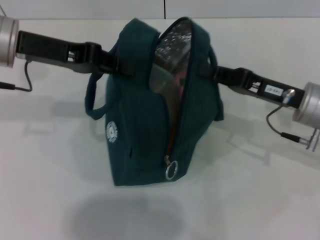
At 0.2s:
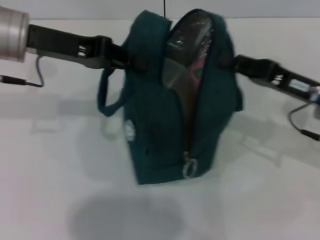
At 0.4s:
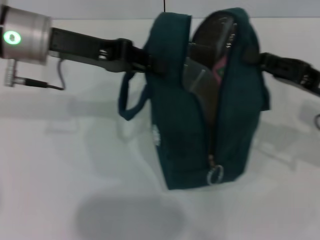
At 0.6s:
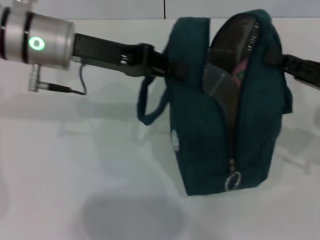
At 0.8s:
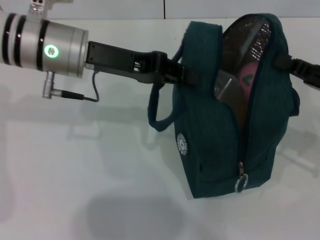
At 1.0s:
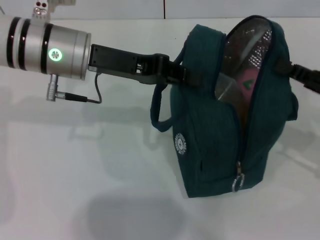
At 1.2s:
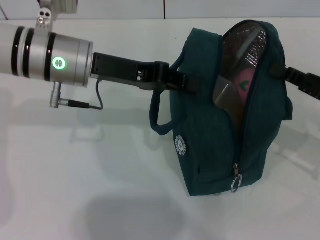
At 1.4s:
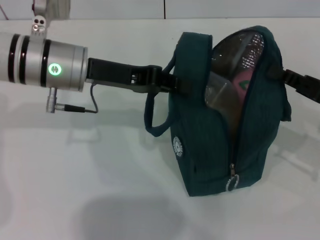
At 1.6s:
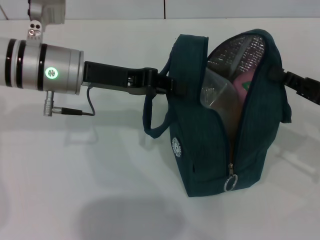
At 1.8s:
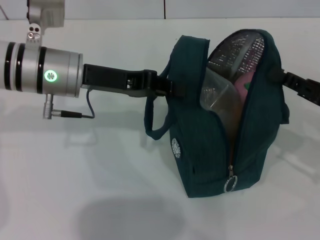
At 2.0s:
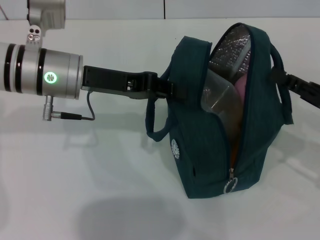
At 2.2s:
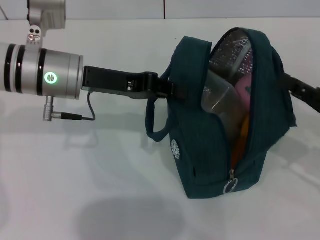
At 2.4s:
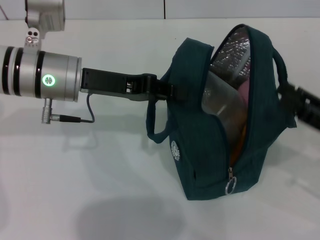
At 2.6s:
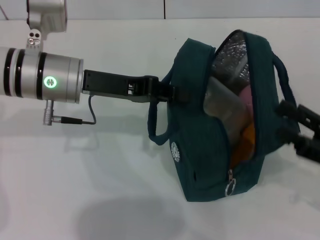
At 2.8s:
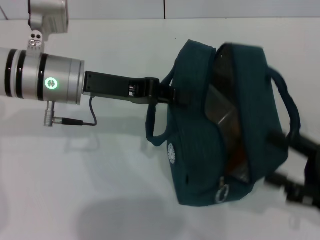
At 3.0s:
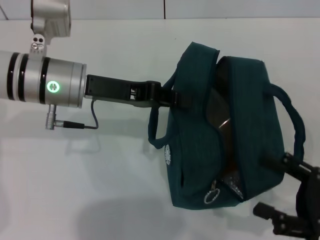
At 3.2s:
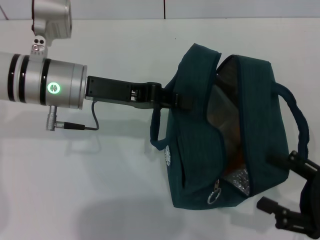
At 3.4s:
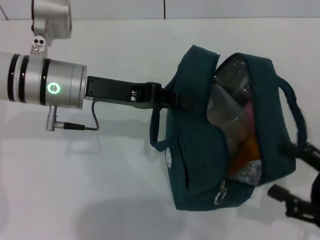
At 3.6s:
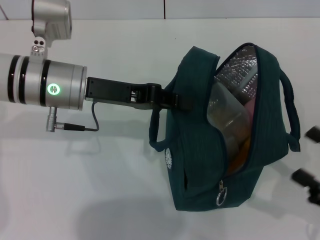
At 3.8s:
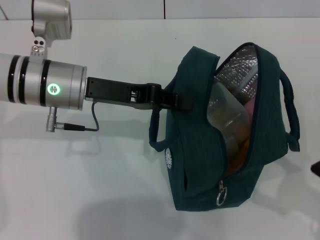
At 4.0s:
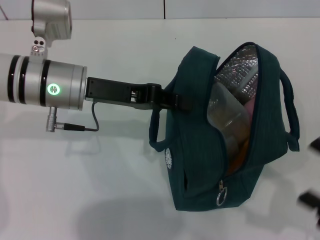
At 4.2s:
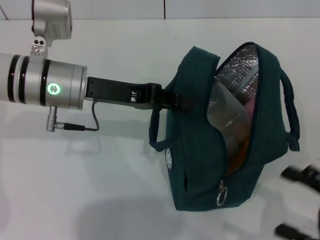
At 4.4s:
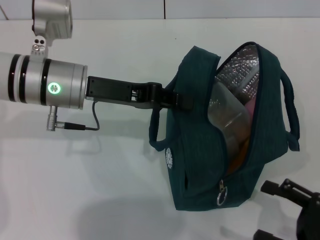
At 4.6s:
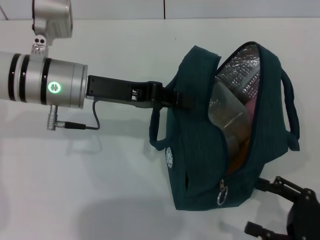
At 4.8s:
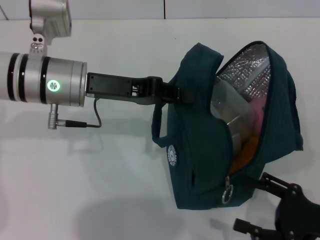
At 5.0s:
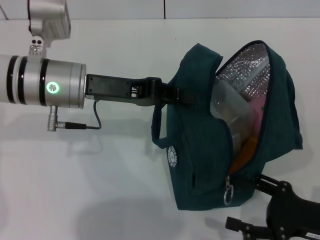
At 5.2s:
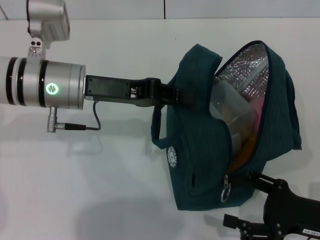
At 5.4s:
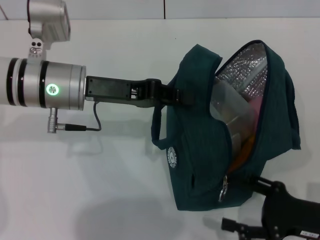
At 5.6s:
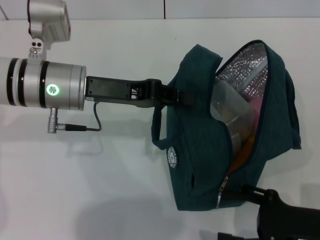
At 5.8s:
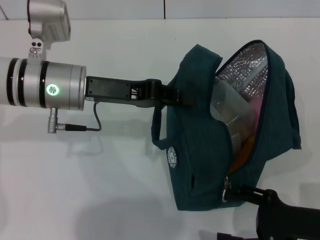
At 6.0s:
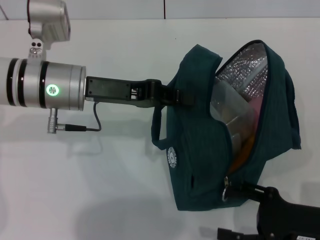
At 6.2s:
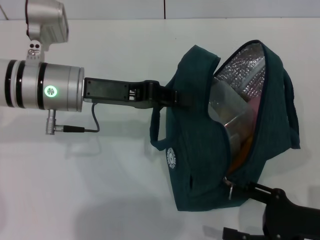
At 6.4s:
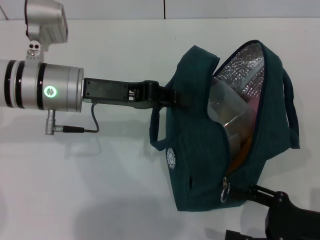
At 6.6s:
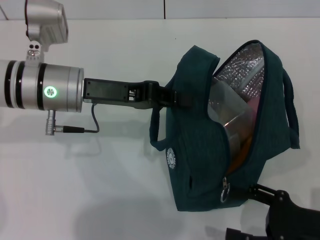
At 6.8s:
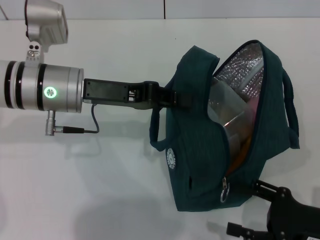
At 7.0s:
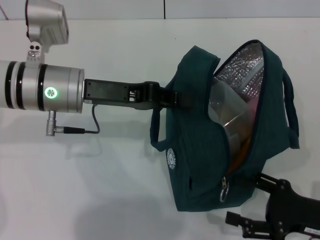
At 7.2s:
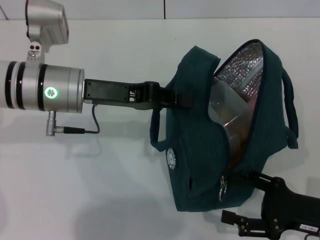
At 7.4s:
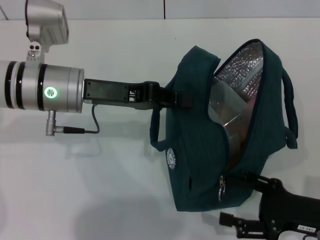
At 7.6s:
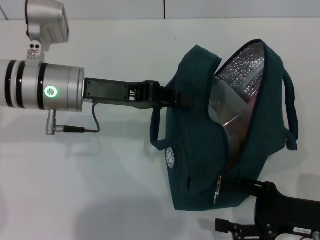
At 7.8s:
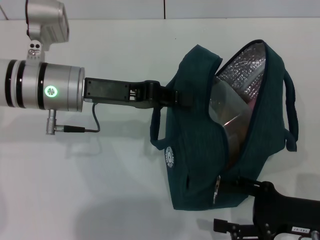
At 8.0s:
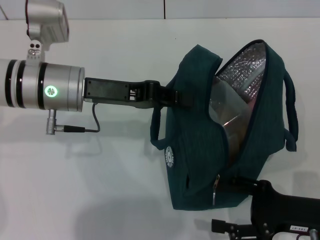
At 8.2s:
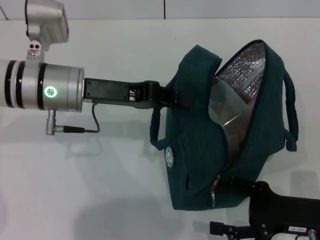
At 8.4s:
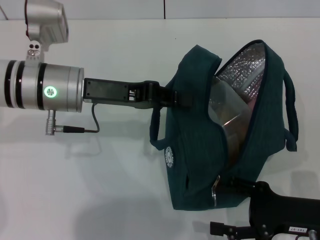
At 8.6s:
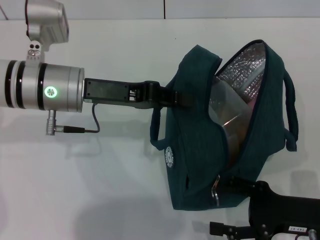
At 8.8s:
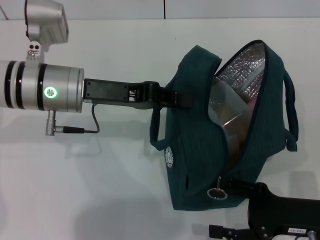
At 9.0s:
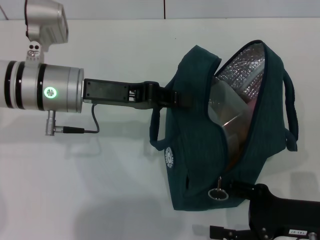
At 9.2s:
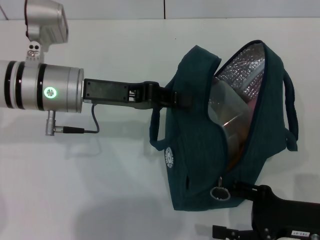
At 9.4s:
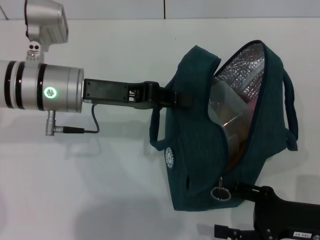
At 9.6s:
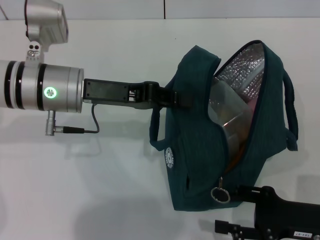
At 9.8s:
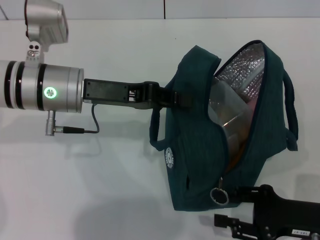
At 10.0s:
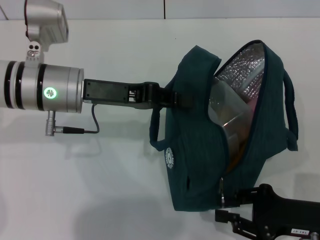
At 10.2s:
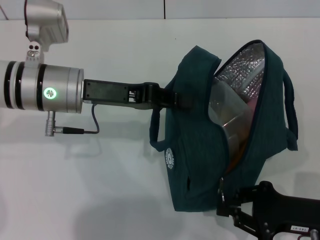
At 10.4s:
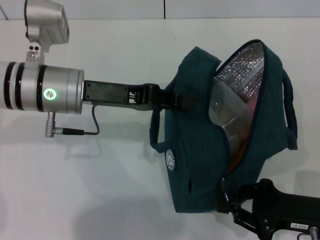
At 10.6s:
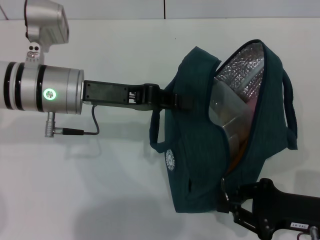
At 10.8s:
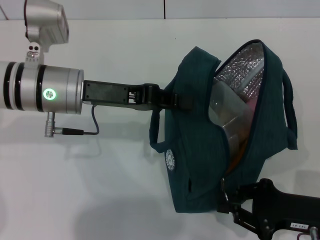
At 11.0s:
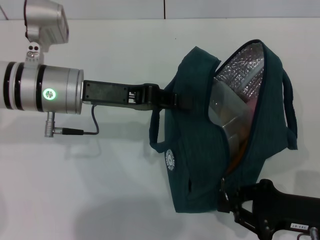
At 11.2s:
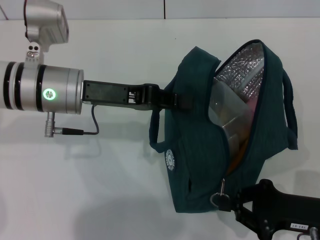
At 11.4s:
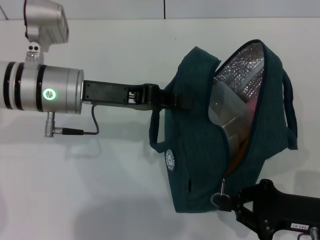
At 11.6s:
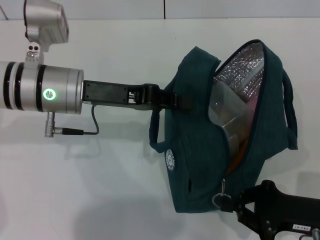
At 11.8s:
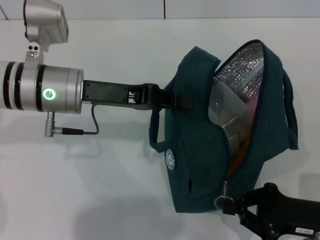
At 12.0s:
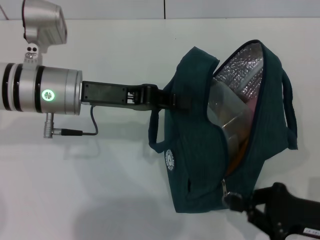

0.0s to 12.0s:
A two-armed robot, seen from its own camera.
Step, 0.0s to 2.2s: Hold the lunch bag with your right hand.
0.0s to 1.6s: The left gripper is displaced to the right and downward by roughly 10 cm. The right gripper heads to the right, covering roughly 10 cm.
1.6s to 3.0s: The right gripper is displaced backward by roughly 10 cm, and opens.
3.0s to 4.4s: The grippers make only small movements.
4.4s to 6.0s: The right gripper moves approximately 5 cm.
6.0s to 7.6s: The grippers stay close to where they were, moving slightly.
7.6s to 9.0s: Both grippers stay about where they are.
9.0s to 10.4s: The right gripper closes.
10.4s to 12.0s: The grippers stay close to where they were, moving slightly.

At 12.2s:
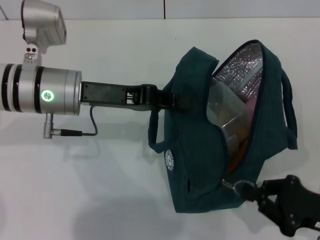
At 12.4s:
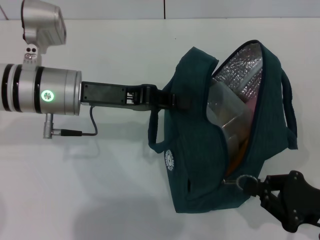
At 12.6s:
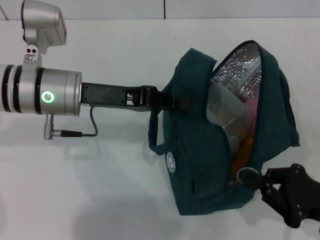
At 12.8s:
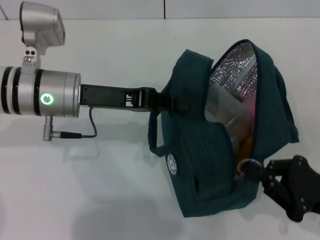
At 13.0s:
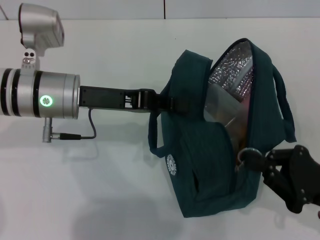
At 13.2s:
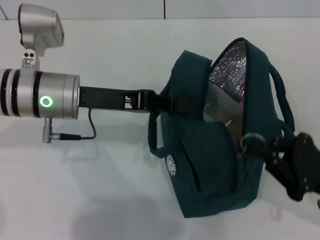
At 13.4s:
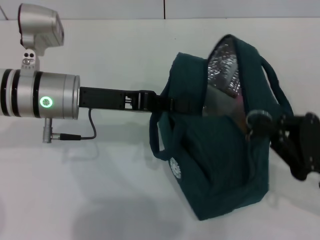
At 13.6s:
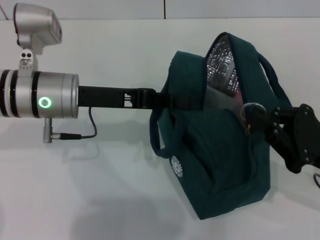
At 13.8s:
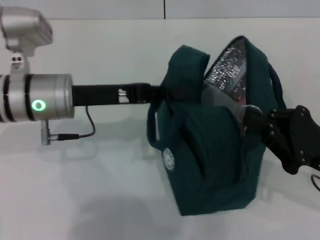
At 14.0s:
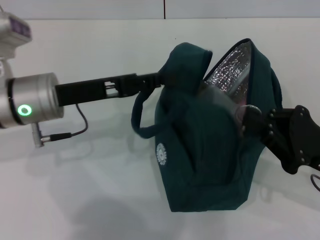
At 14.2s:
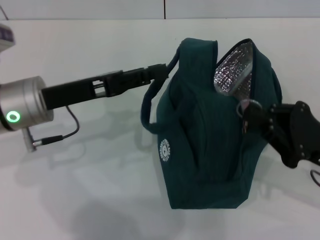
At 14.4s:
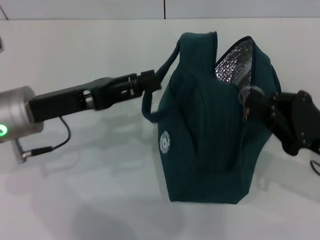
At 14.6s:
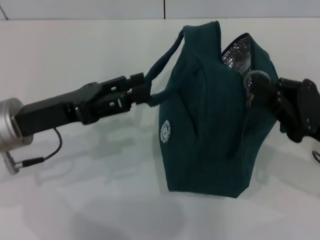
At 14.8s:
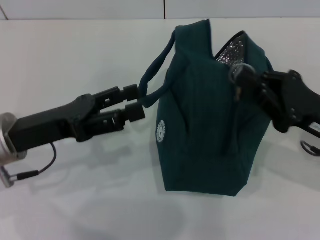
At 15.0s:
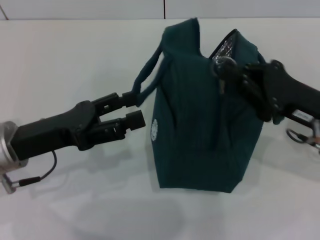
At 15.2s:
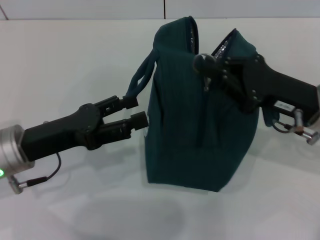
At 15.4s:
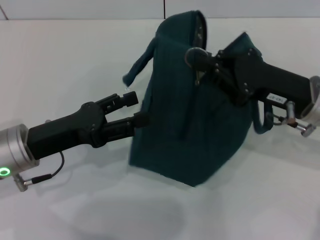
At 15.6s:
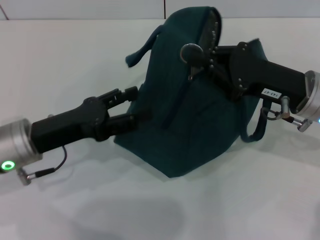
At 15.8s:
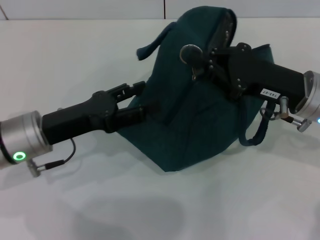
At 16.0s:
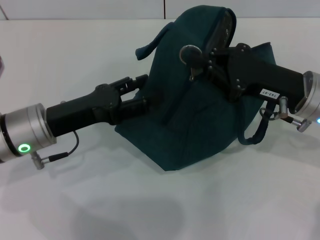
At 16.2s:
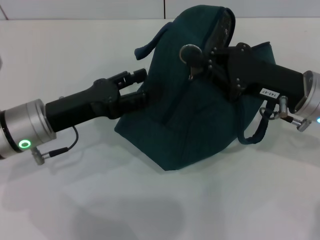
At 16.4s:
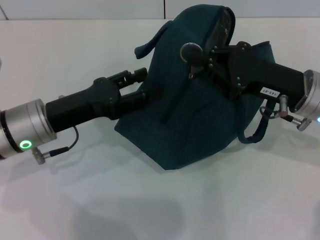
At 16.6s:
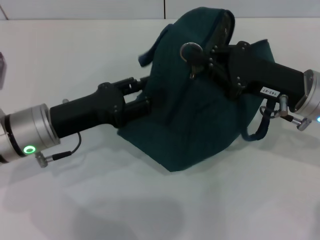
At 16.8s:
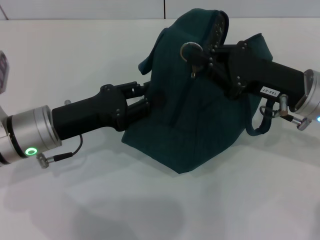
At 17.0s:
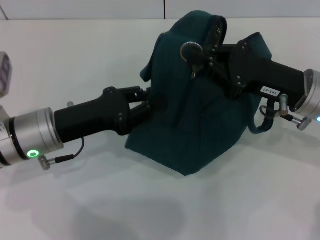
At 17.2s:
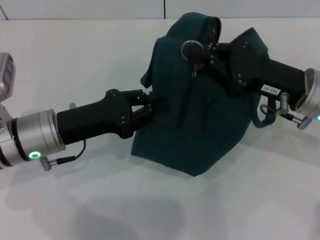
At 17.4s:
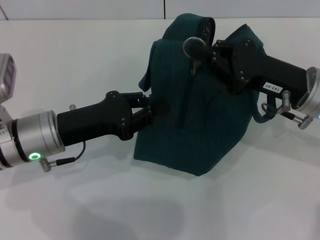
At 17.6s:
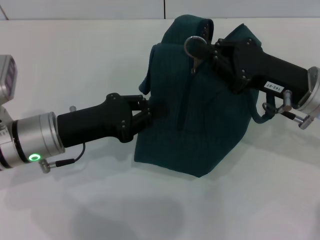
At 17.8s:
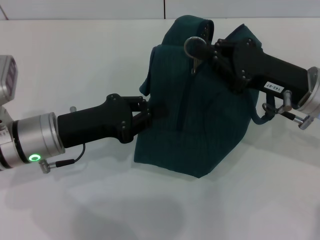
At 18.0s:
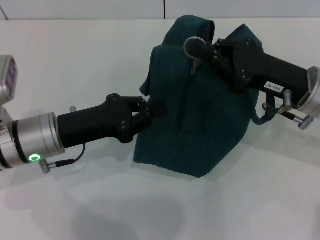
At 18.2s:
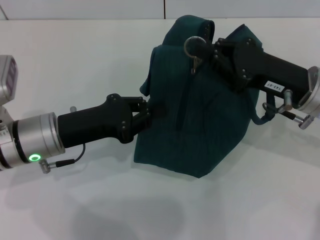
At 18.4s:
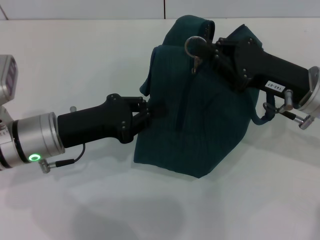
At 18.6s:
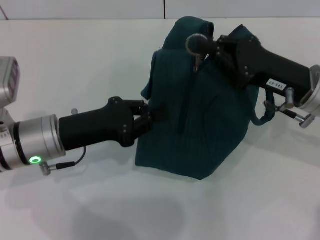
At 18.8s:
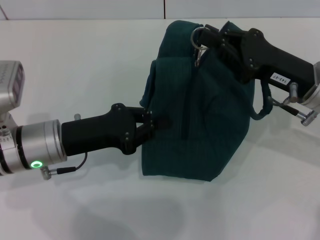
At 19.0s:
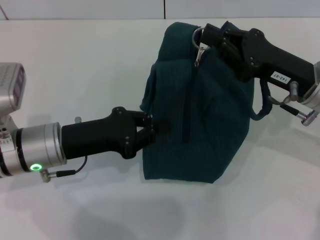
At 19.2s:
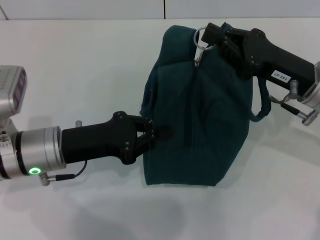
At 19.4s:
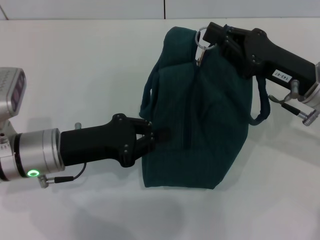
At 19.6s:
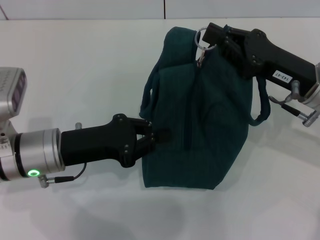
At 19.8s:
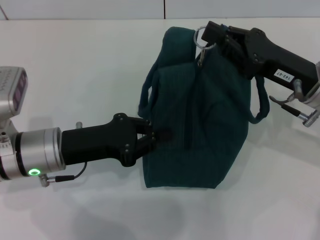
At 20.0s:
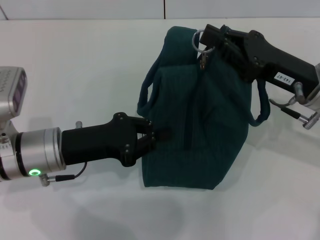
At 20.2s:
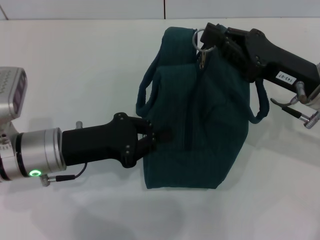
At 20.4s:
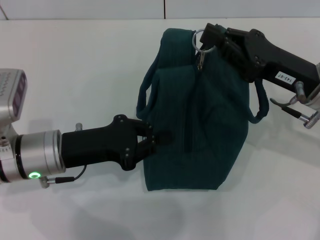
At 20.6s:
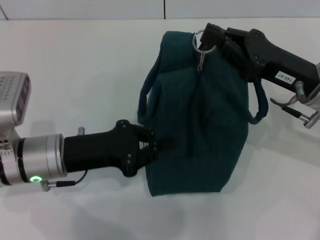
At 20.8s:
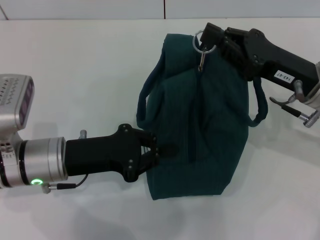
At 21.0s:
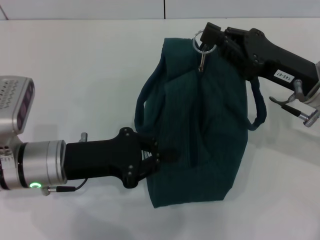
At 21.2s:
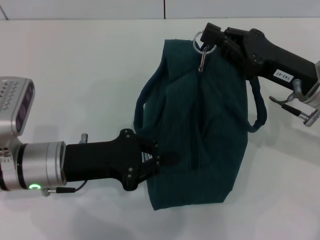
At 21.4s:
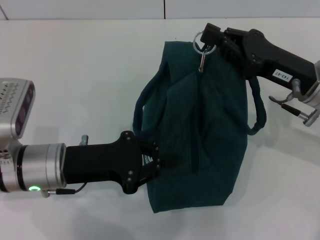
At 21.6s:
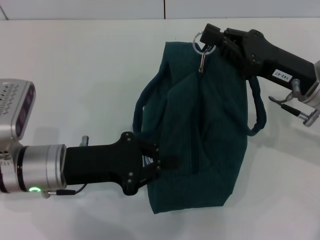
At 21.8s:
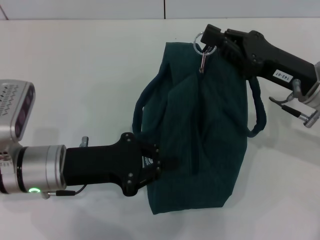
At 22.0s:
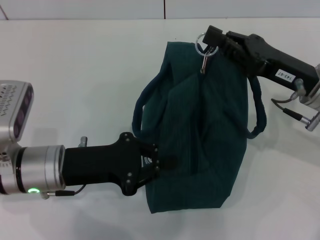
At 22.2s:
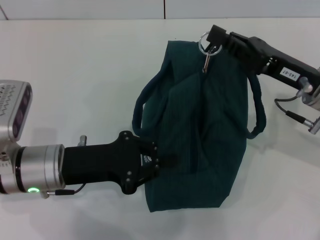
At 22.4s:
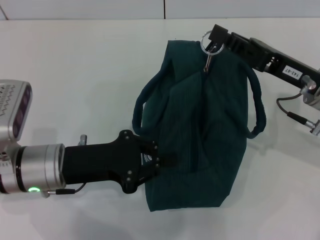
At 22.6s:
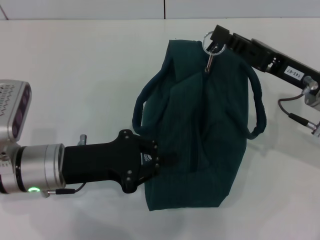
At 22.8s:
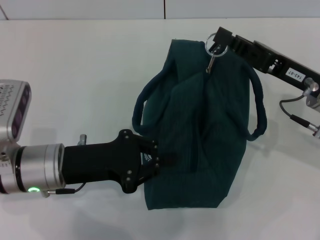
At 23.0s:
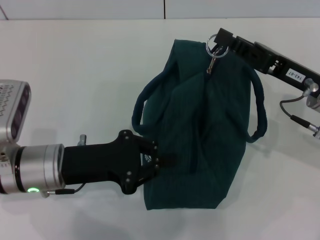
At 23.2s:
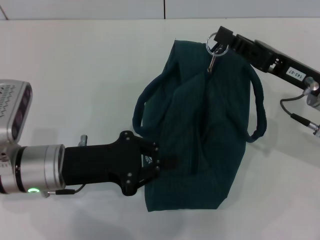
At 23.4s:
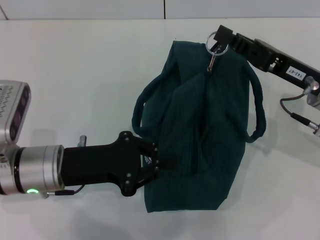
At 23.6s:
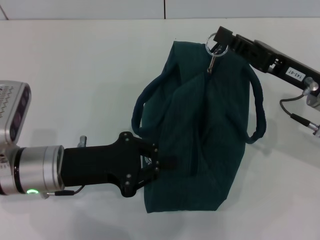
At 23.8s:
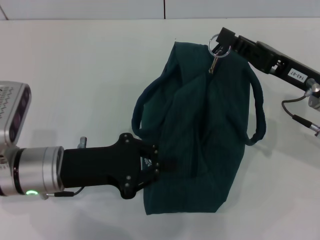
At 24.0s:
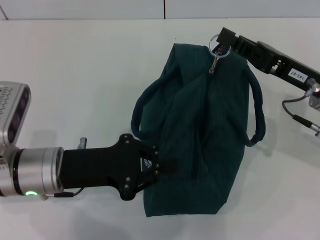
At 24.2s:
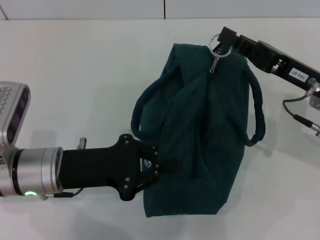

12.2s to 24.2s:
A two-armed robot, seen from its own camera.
12.2s to 13.8s: The right gripper shifts by roughly 5 cm.
13.8s to 15.2s: The left gripper is displaced backward and to the left by approximately 10 cm, and opens up; the right gripper shifts roughly 5 cm forward.
16.6s to 18.2s: The left gripper closes up.
18.2s to 21.2s: The grippers make only small movements.
21.2s to 22.6s: The grippers make only small movements.
22.6s to 24.2s: The two grippers keep their place.
